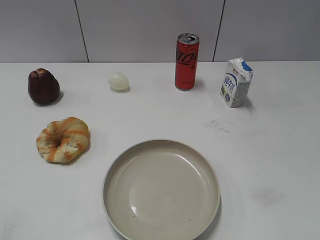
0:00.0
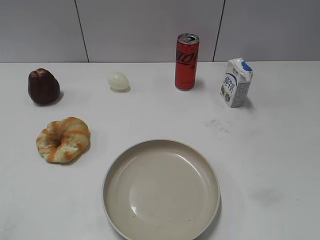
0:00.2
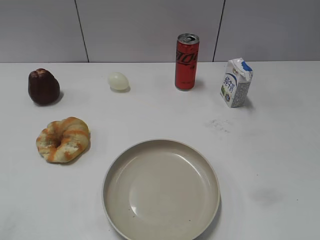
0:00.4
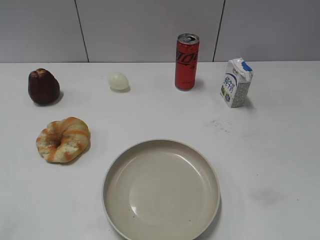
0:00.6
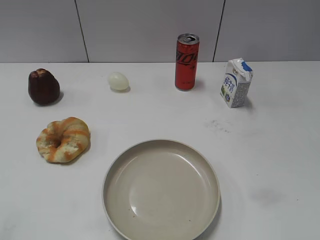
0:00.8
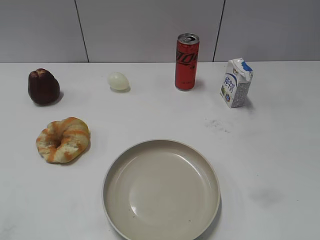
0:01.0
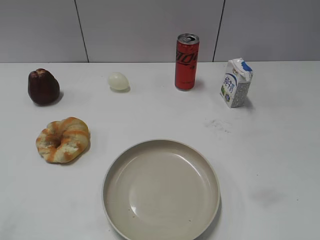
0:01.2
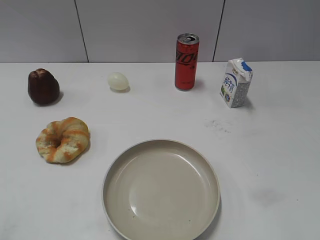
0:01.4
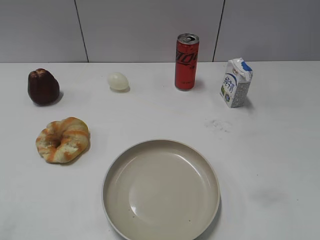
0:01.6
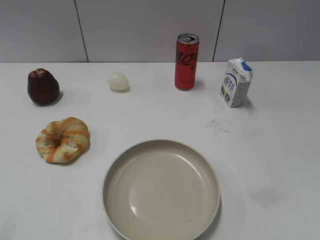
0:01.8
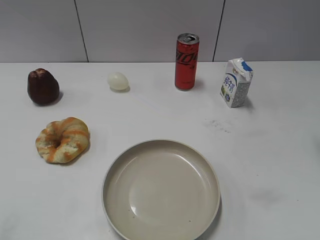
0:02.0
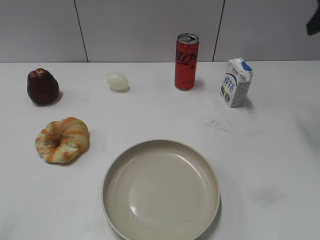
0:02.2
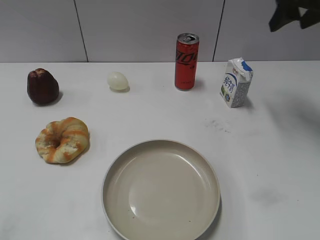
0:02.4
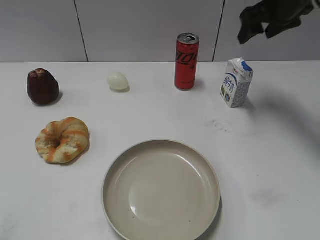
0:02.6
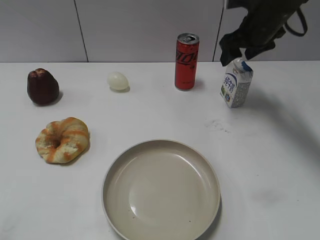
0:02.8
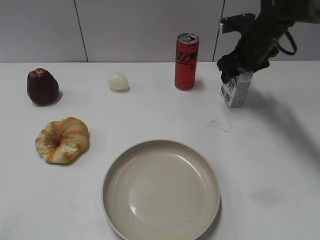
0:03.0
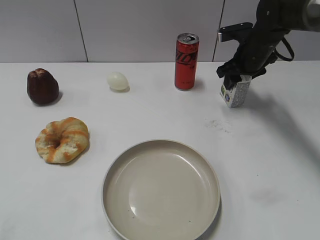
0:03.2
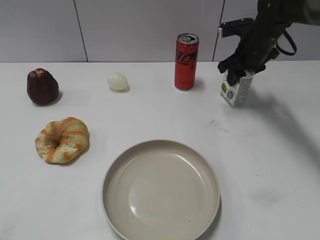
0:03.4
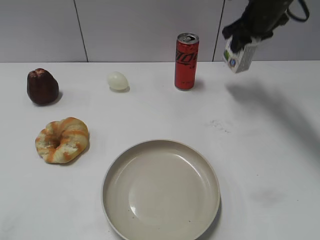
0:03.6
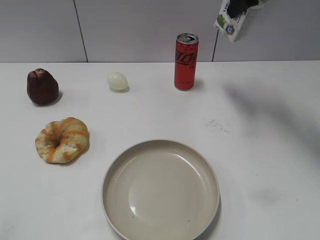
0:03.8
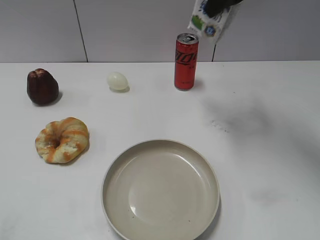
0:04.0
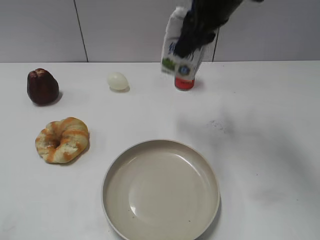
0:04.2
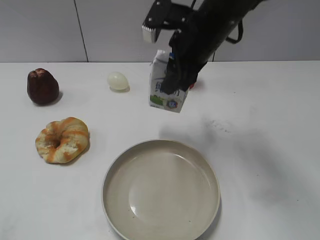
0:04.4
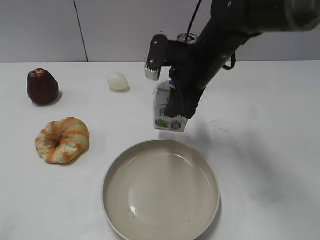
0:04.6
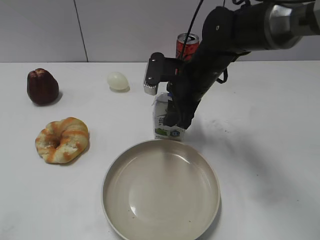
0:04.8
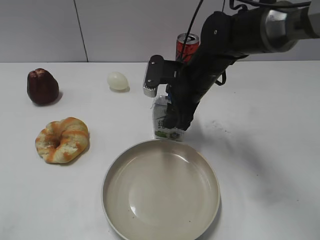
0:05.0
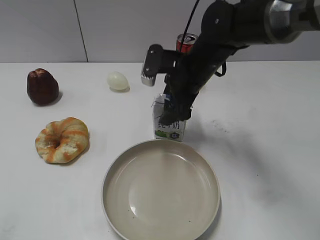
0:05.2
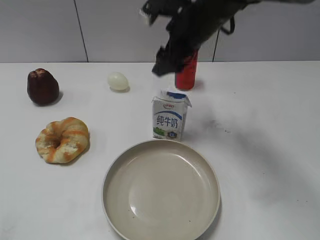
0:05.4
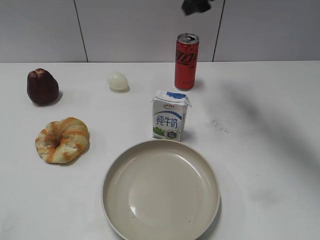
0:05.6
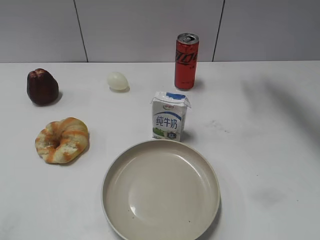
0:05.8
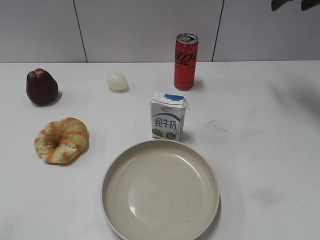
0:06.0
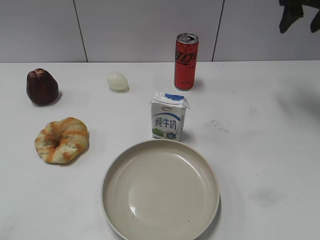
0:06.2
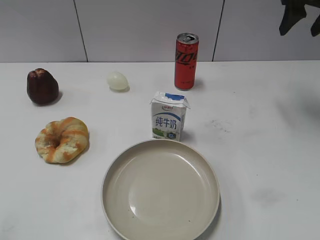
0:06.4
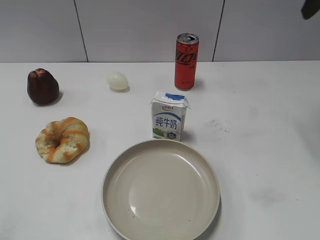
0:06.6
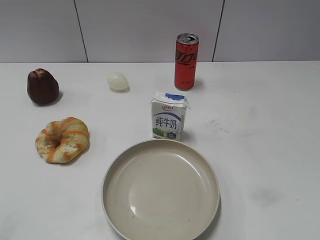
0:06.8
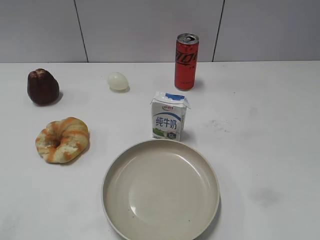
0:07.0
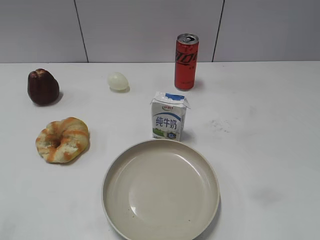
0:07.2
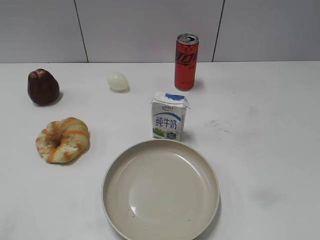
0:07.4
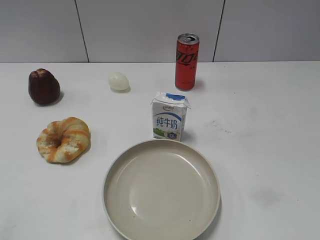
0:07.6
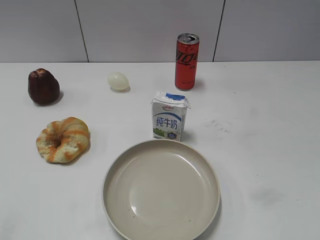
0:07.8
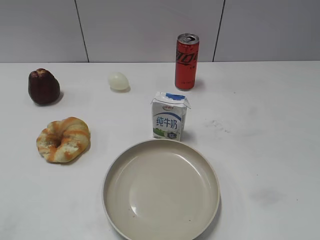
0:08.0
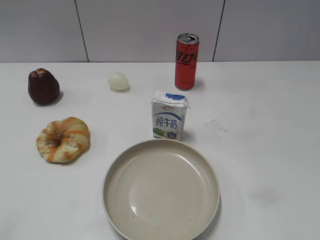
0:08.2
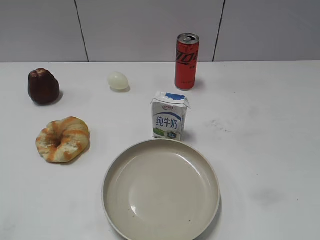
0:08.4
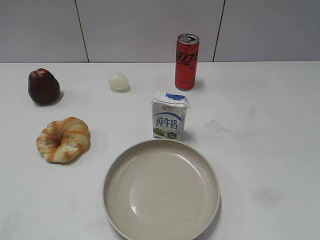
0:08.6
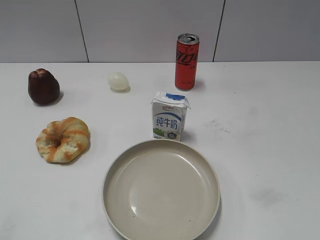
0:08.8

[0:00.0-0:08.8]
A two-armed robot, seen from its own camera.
Step, 0:01.2 to 0:03.4: Grasp the milk with right gripper.
Step, 0:03.6 to 0:05.2: Place the milk on the table with right gripper.
0:01.4 to 0:03.0: The right gripper shifts about 40 cm forward.
0:03.0 to 0:04.4: The right gripper shifts approximately 20 cm to the left, backward and upward, and closes.
0:04.4 to 0:05.8: The right gripper heads to the right, forward and upward, covering approximately 20 cm, and opens up.
0:05.8 to 0:07.4: The right gripper shifts roughly 50 cm backward.
0:07.4 to 0:08.8: Both grippers stay put.

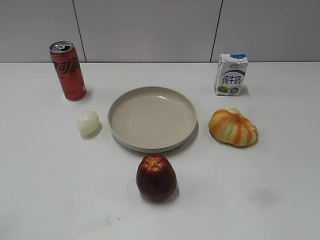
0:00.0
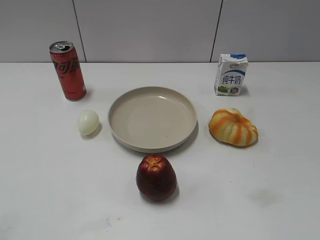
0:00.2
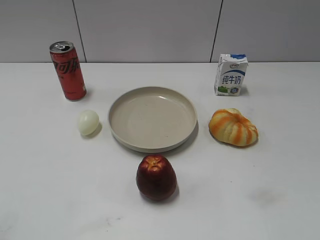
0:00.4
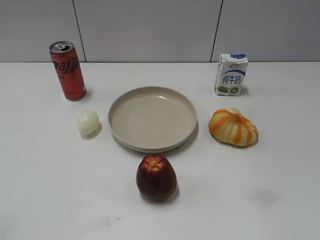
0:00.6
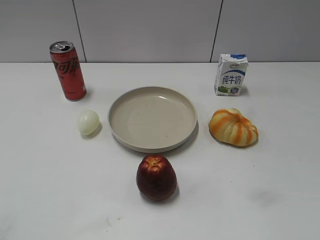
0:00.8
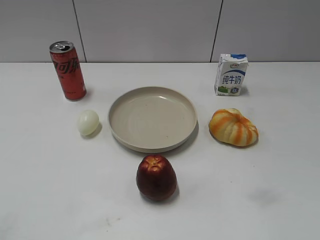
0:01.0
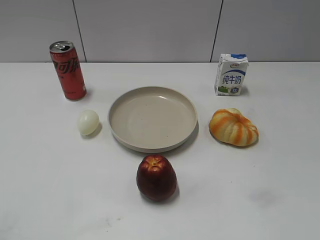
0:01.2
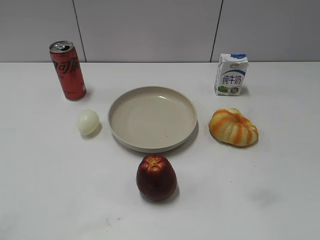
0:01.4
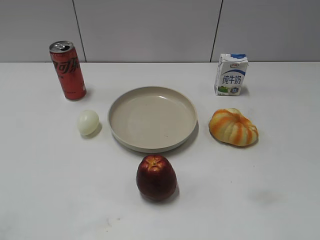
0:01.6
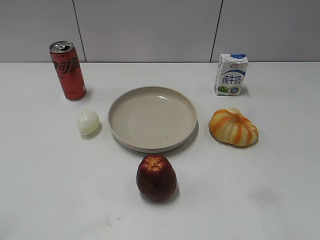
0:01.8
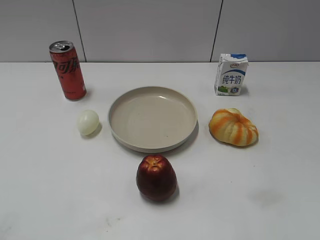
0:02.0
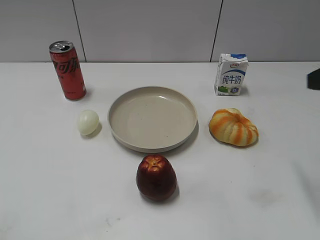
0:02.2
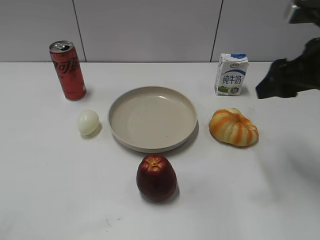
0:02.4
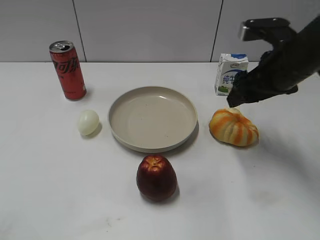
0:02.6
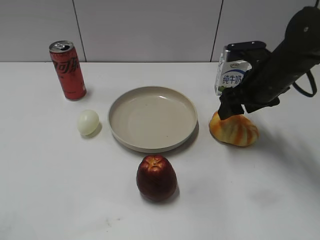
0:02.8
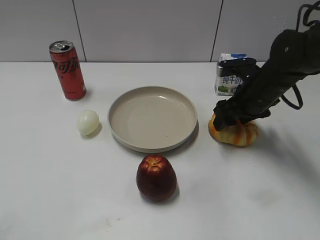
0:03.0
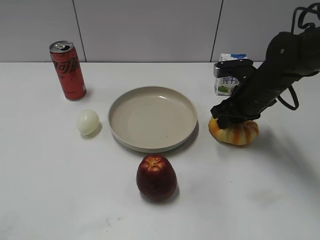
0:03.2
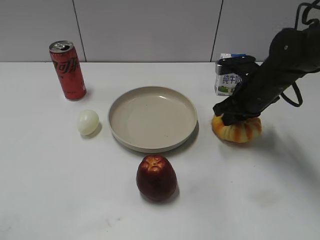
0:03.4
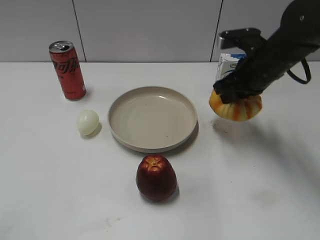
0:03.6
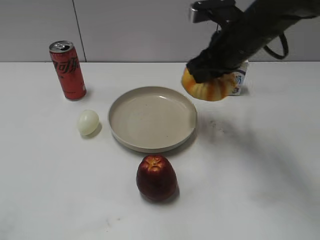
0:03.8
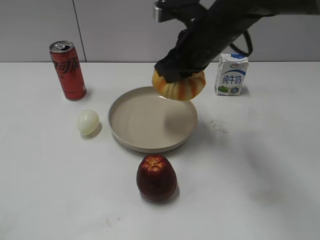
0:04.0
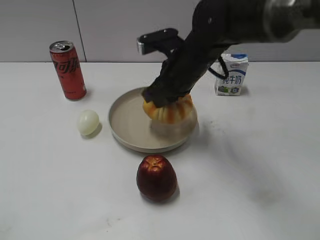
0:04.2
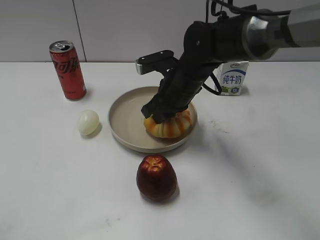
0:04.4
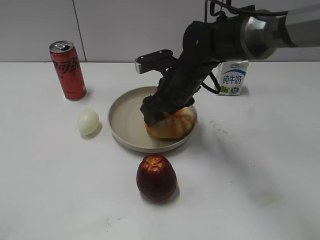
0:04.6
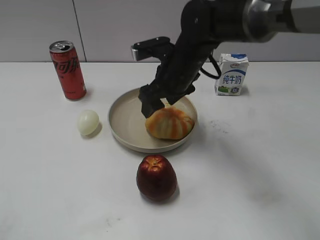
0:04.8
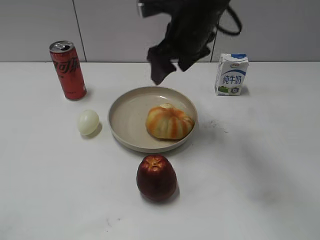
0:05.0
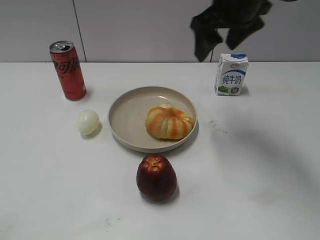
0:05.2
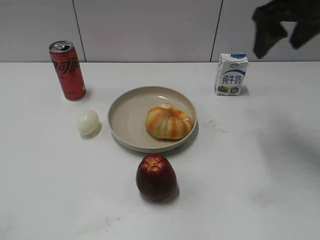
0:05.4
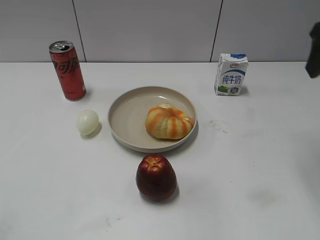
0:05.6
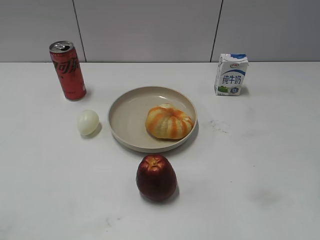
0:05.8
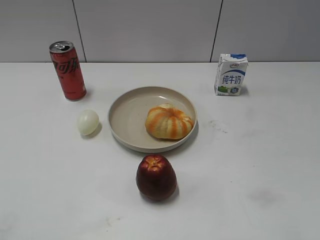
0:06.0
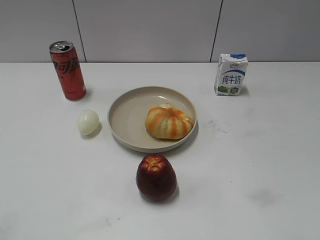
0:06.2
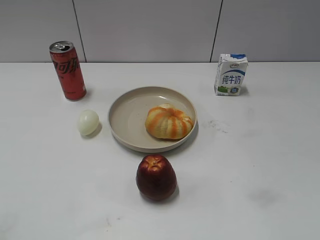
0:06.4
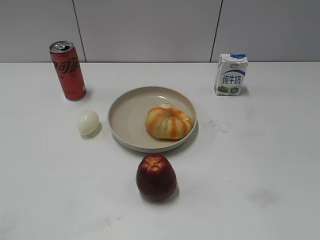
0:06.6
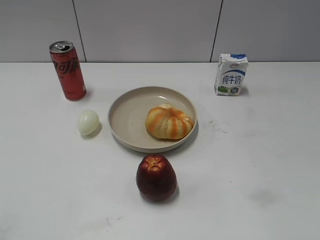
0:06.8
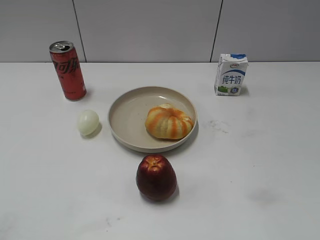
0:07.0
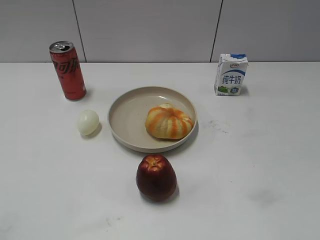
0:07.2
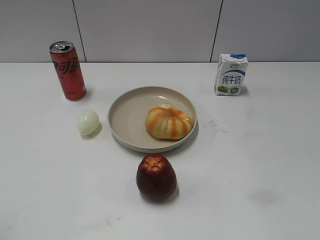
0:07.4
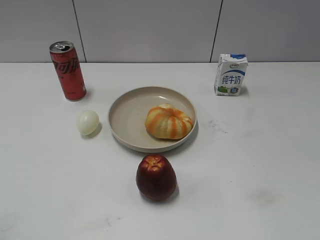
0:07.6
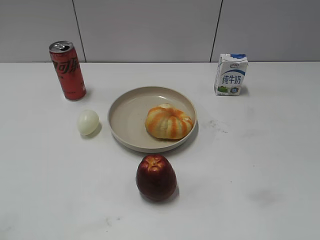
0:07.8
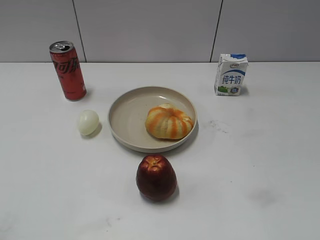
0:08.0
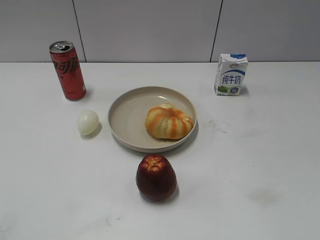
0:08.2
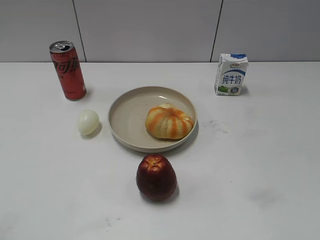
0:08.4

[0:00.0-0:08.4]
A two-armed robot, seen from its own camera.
Step, 0:01.0 to 0:03.2: Grasp the round bread with right gripper.
Step, 0:03.4 to 0:04.8: Place the round bread on the plate with right gripper.
0:01.4 to 0:02.8: The right gripper shifts some 35 cm forward.
0:02.8 to 0:04.2: The right gripper travels to the left by roughly 15 cm, and closes.
0:04.2 to 0:05.6: The right gripper travels to the right, upward and backward by about 25 cm, and opens.
0:05.6 to 0:07.0: The right gripper heads backward, covering approximately 25 cm.
